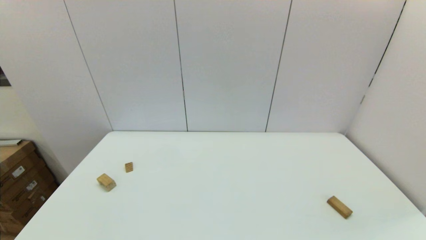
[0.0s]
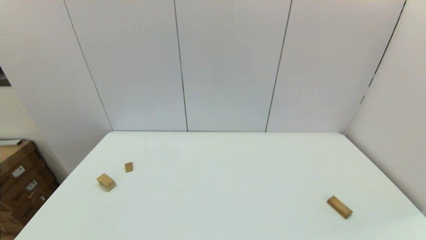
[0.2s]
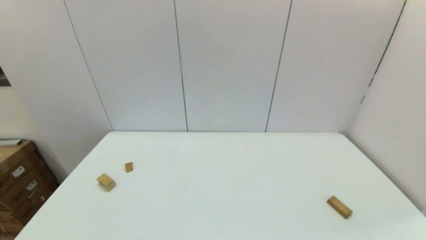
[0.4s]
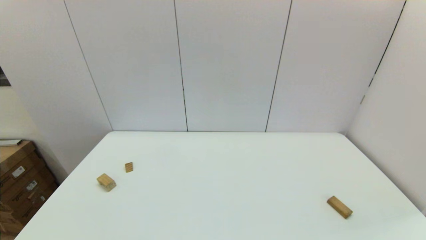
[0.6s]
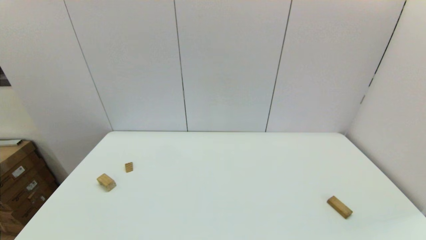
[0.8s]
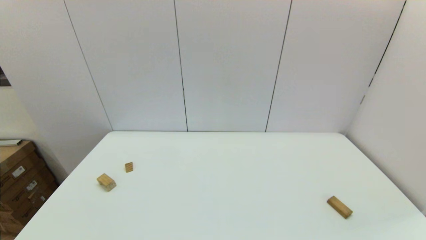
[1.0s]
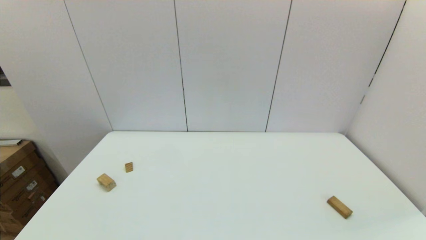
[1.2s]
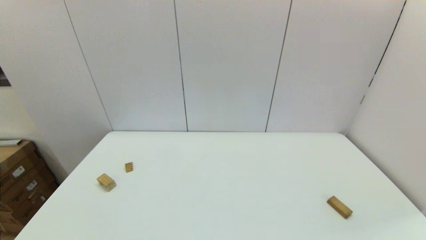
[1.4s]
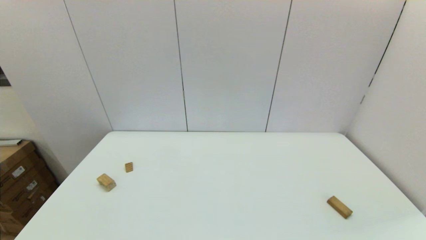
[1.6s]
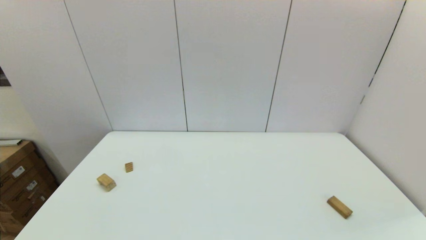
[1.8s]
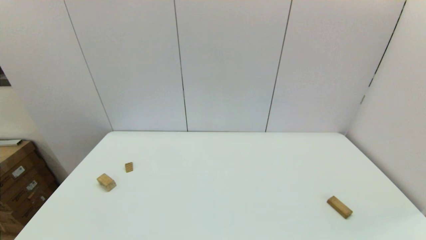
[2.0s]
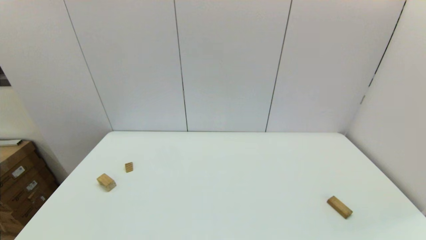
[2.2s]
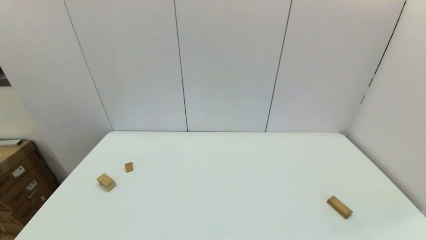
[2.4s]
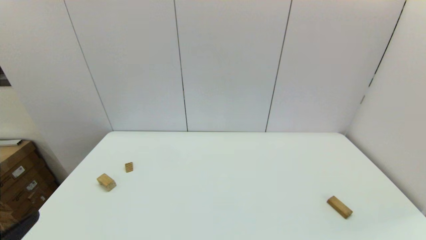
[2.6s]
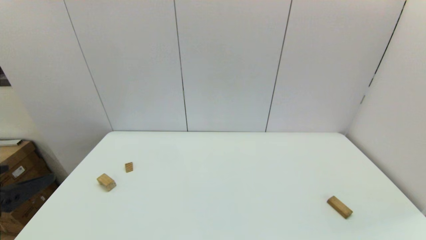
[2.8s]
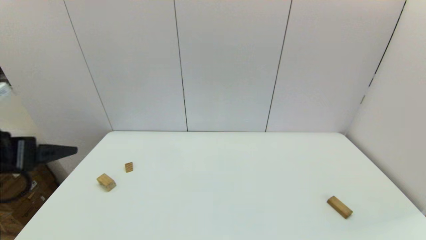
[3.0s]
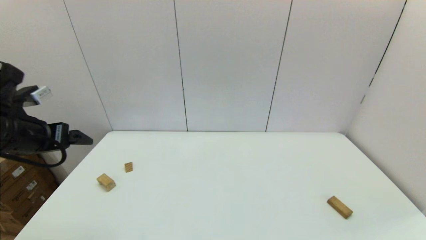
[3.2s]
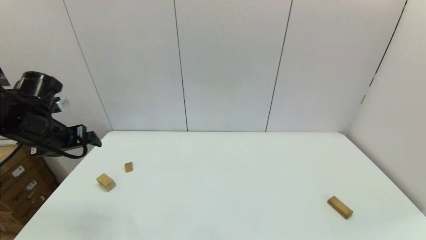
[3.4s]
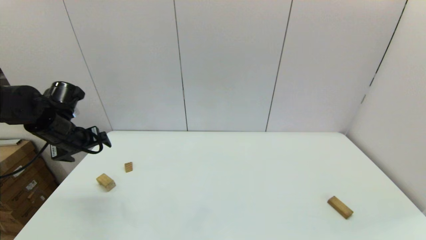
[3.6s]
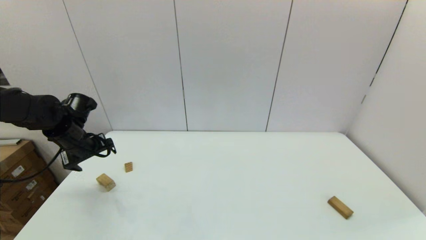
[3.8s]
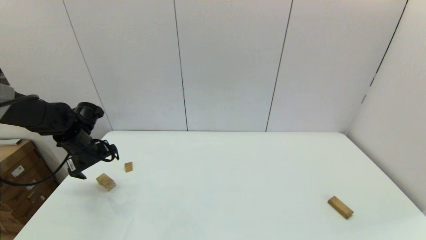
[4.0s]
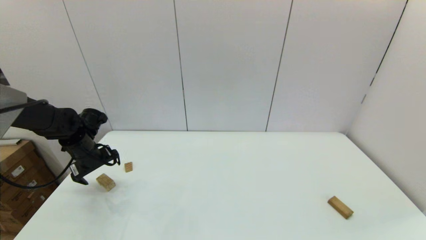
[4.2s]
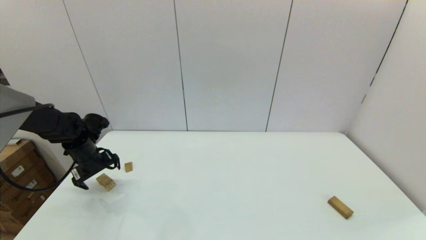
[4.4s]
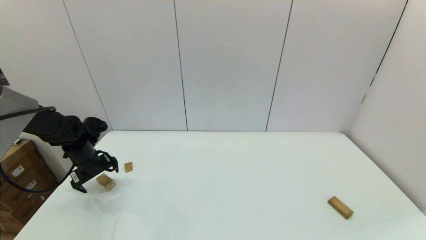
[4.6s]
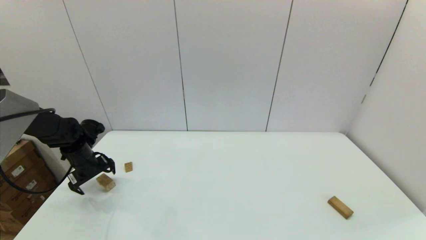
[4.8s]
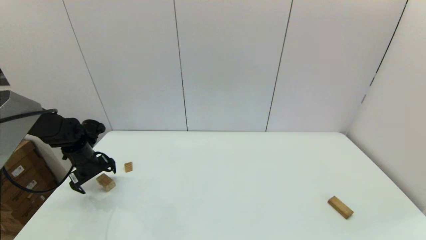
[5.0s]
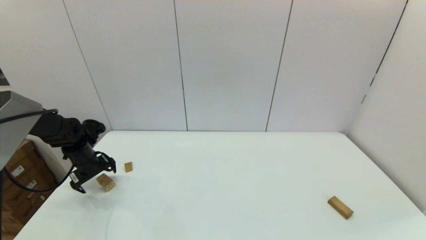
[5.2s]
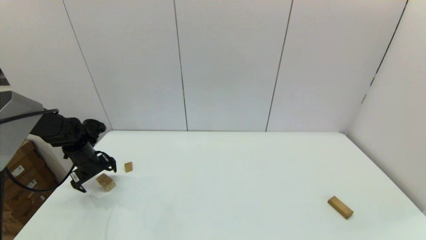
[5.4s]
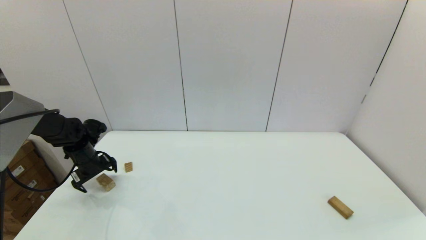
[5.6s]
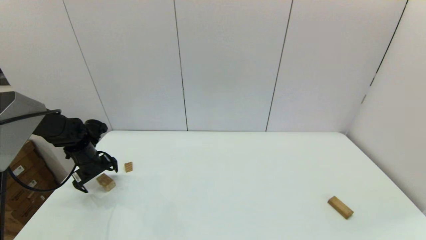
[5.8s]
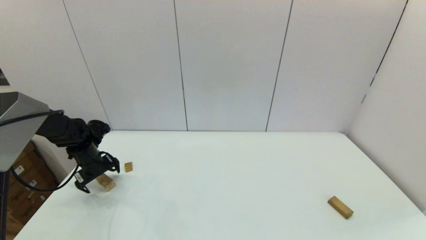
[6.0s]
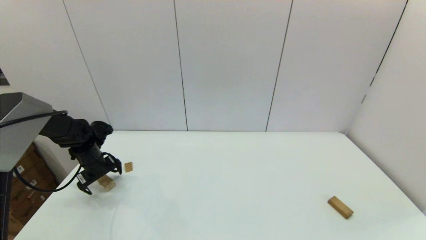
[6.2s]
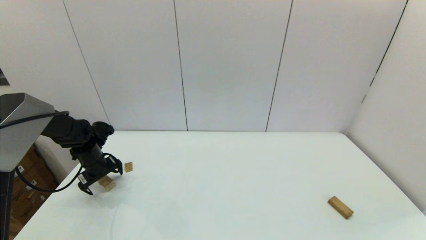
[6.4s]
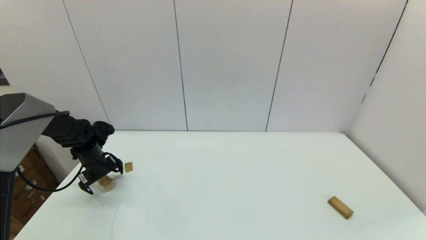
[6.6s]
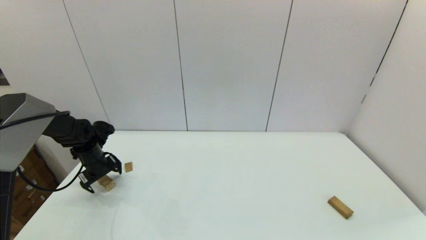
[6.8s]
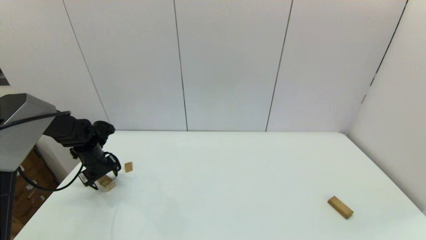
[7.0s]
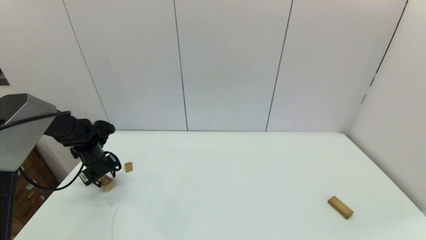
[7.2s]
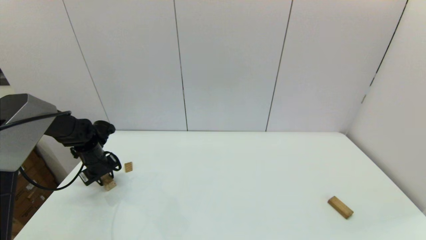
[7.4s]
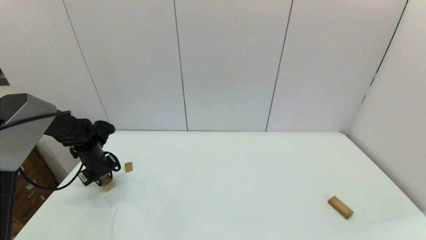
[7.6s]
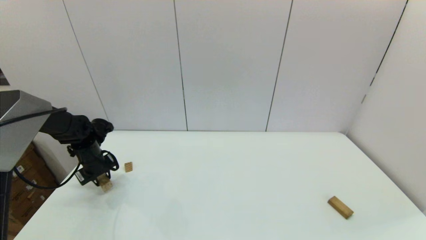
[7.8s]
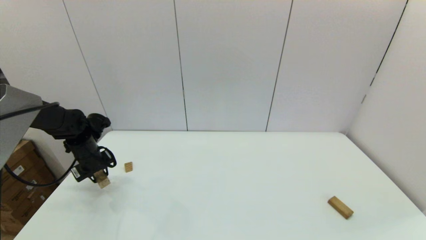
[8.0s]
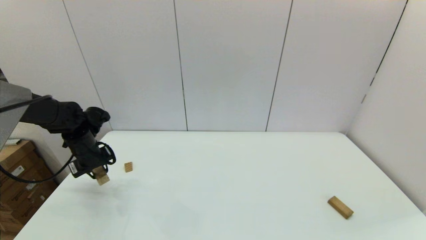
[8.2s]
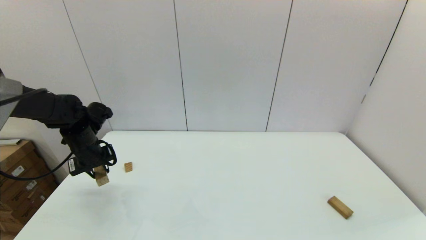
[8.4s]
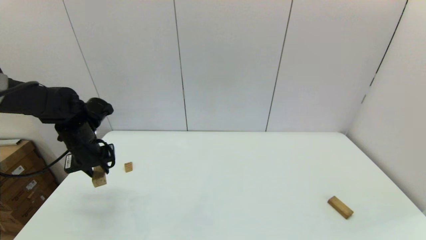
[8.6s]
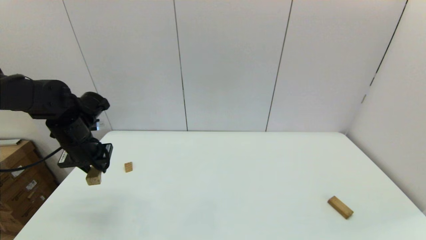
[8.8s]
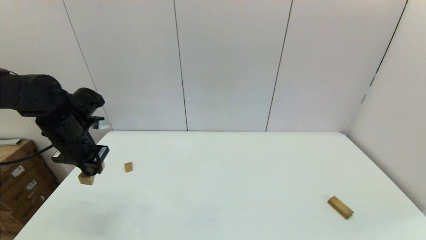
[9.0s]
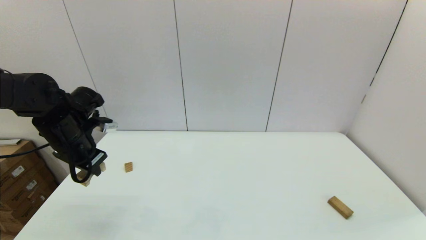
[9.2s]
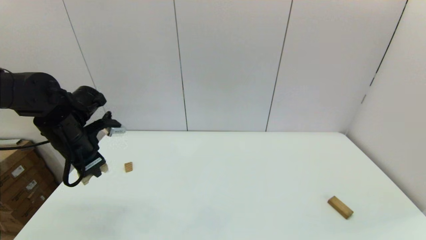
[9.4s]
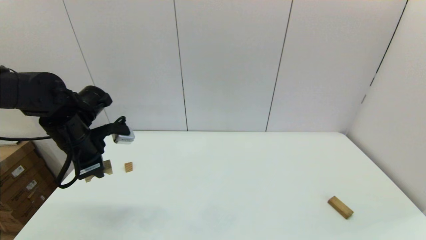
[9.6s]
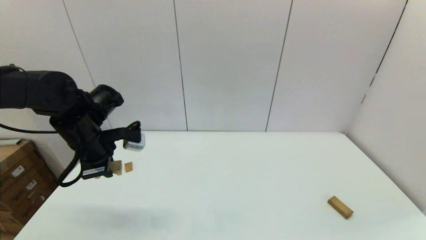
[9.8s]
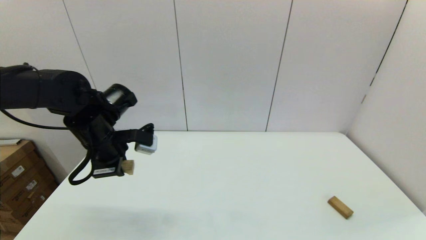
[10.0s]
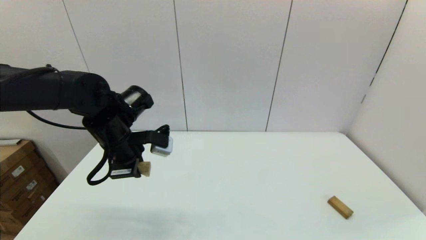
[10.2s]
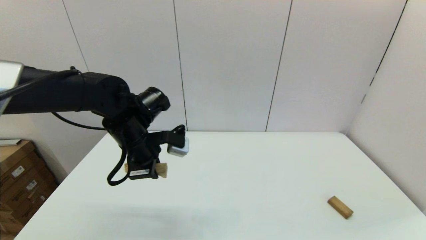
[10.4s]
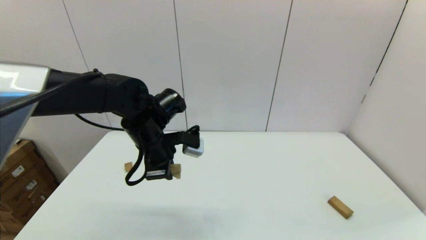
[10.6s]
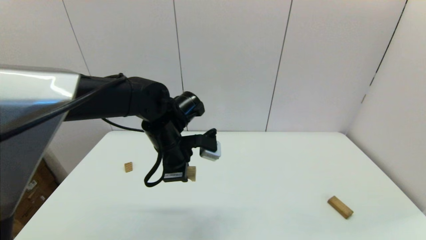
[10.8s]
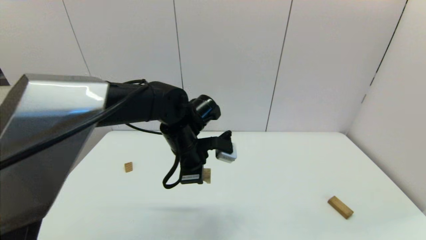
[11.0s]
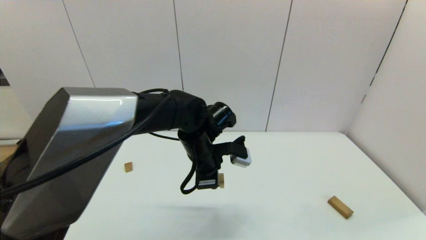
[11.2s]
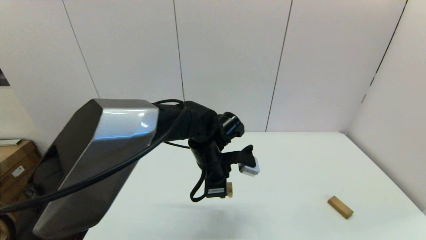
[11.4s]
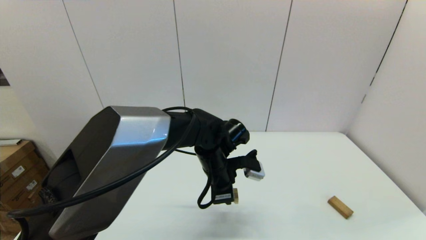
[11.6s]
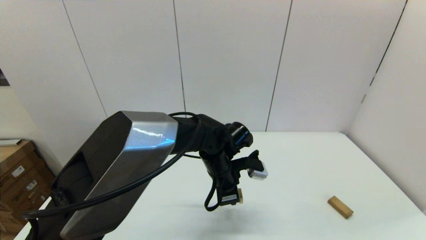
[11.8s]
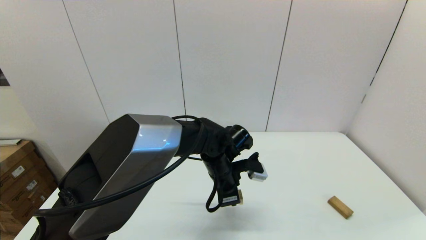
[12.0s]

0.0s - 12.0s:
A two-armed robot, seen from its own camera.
Task of the whole recording: place the arched building blocks in the center of the table, set up the rectangular building blocks, and then set up the triangular building blocks.
Step, 2.6s - 7.4s: Grasp the arch-shaped block with the left gripper.
0.0s - 1.6s: Both grippers stay about where they are.
1.6s - 3.0s: The left gripper moves forward and upward, about 25 cm.
3.0s - 4.4s: The left gripper shifts approximately 25 cm forward and downward.
4.4s - 6.0s: The grippers stay close to where they were, moving slightly.
6.0s - 7.6s: The left gripper closes.
7.6s - 9.0s: The left gripper is displaced upward and backward by approximately 15 cm.
9.0s - 10.4s: The left gripper heads to the right, covering roughly 15 cm.
10.4s - 12.0s: The left gripper travels to the right and downward by about 20 cm.

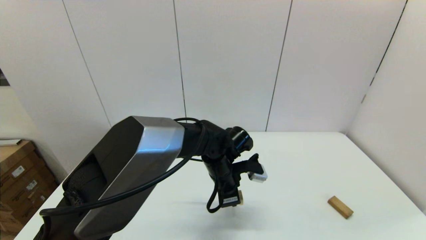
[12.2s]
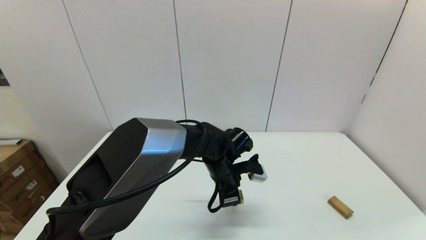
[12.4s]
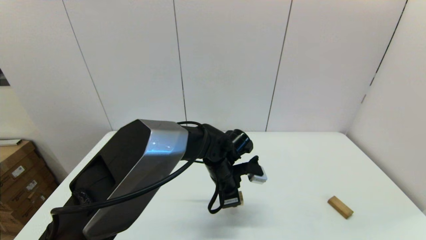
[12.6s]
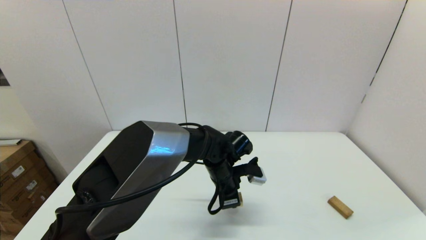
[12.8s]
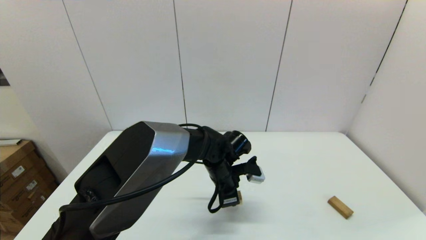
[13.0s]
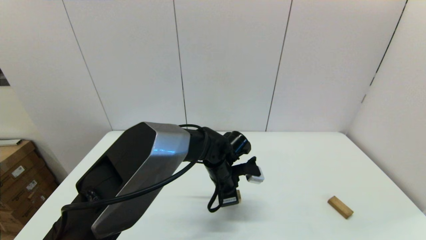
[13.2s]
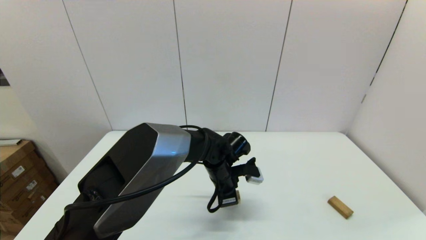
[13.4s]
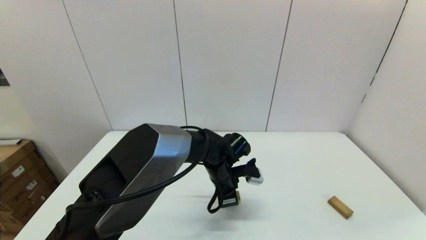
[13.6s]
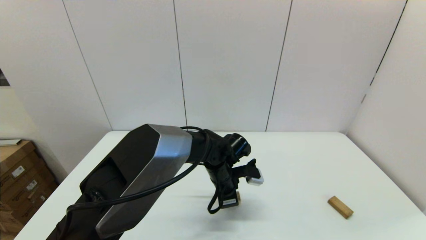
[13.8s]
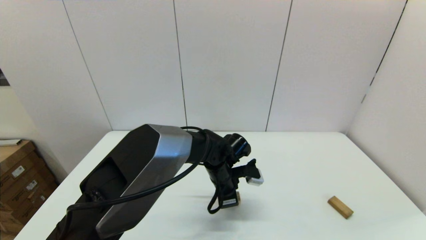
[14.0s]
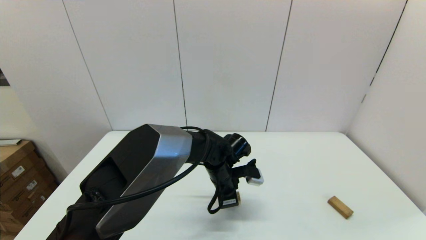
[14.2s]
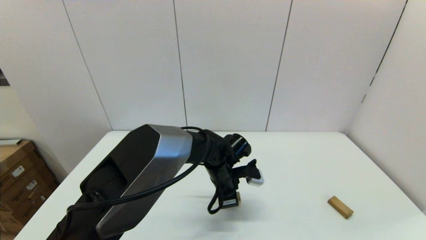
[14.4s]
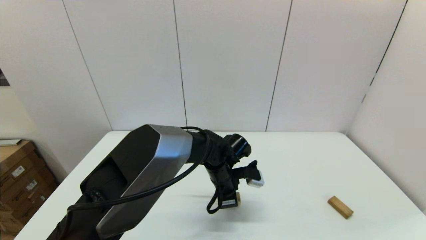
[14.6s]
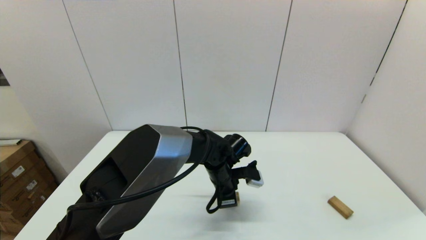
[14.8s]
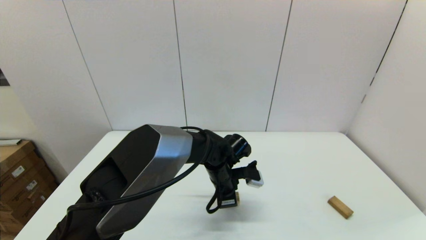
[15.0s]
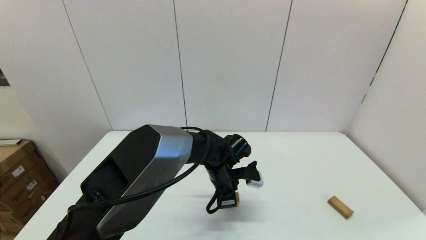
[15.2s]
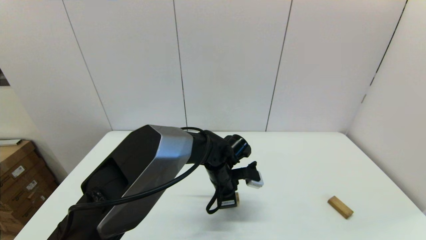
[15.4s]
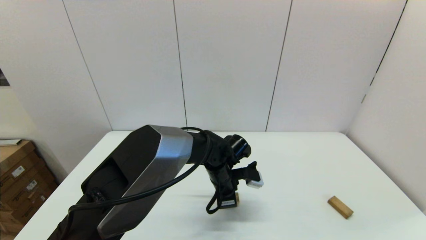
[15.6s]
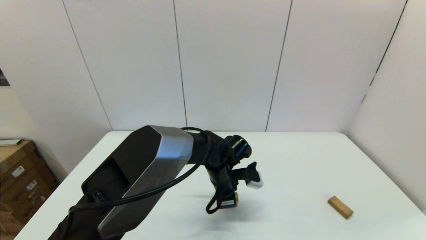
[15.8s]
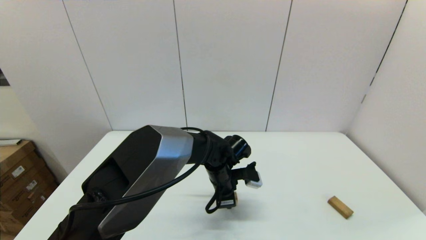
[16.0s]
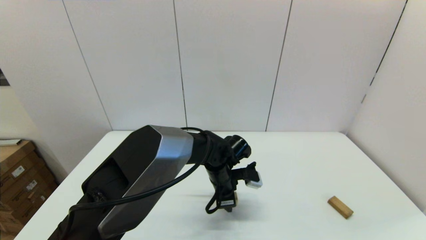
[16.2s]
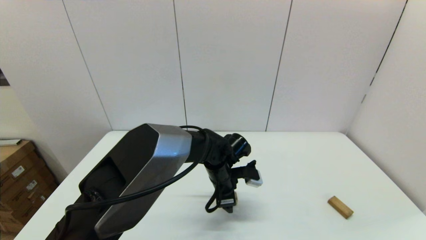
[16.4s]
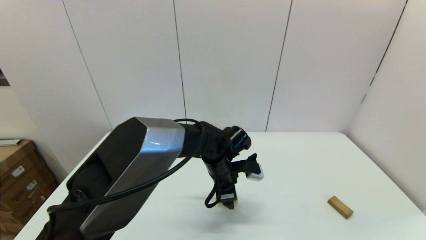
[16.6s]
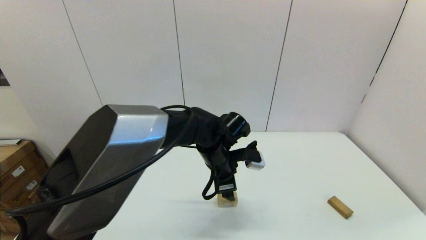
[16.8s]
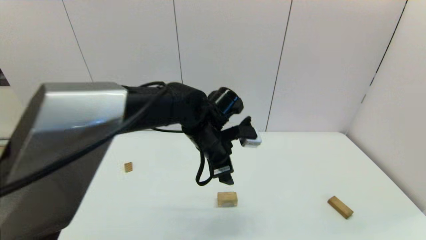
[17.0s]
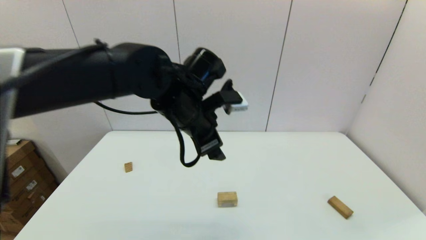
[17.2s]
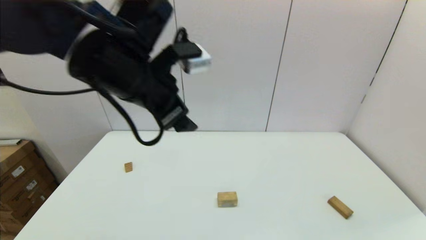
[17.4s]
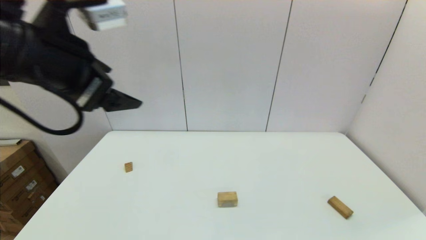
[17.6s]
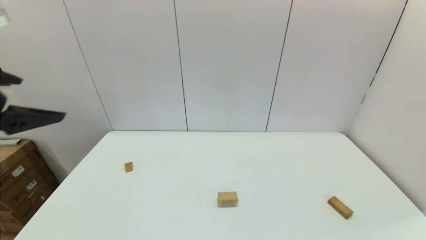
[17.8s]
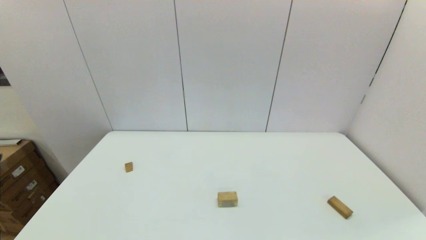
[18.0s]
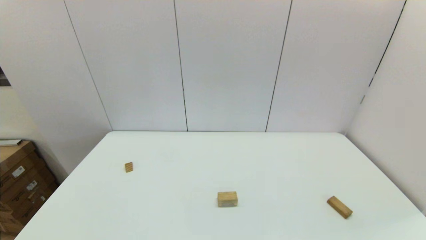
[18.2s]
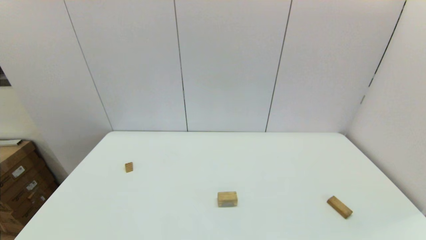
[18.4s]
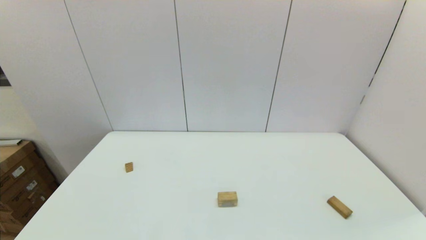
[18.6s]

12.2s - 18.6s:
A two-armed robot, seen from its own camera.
Task of the whole recording: place the arched building blocks in the center of the table, set up the rectangular building blocks, and then set up the triangular building blocks.
Step, 12.2s - 16.2s: Place the arch-shaped block in the center of view with the left gripper.
12.2s - 13.8s: The grippers make only small movements.
13.8s - 15.4s: Both grippers stay about where they are.
15.4s - 17.0s: The left gripper heads upward, covering some 15 cm, and opens up.
17.0s - 18.6s: The left gripper goes roughly 50 cm backward and to the left.
